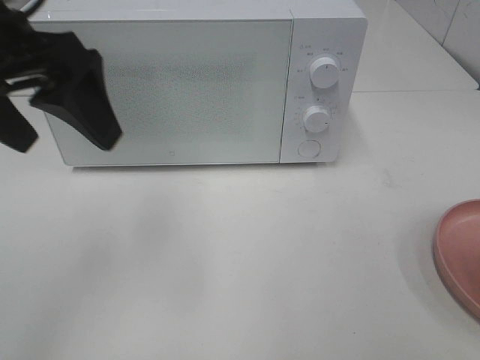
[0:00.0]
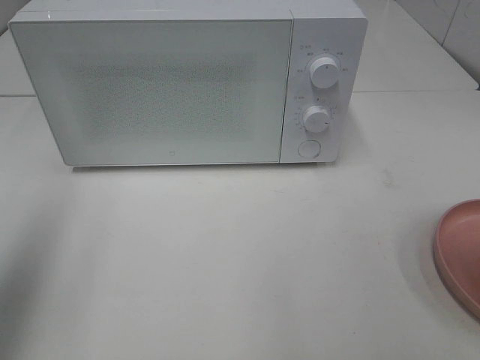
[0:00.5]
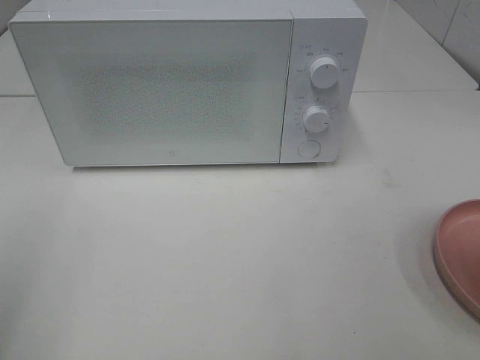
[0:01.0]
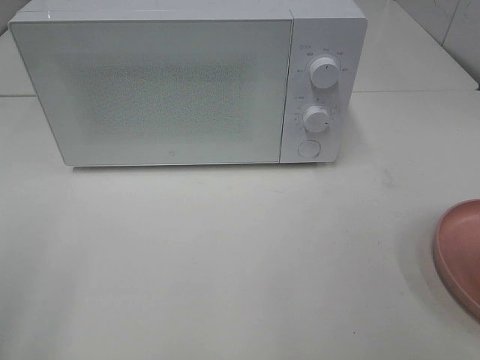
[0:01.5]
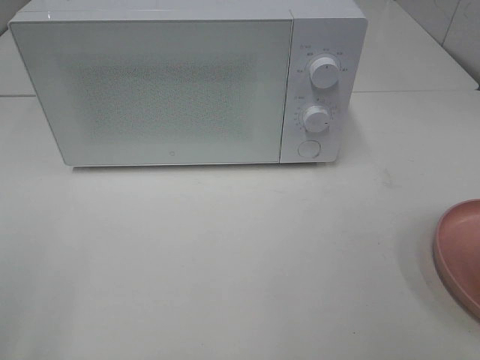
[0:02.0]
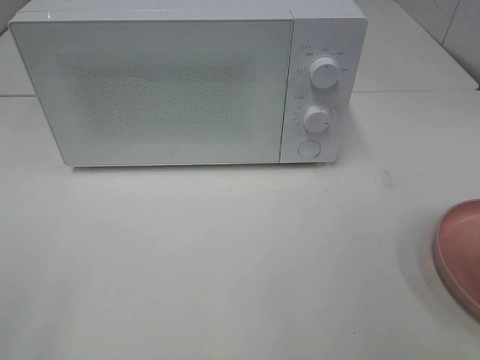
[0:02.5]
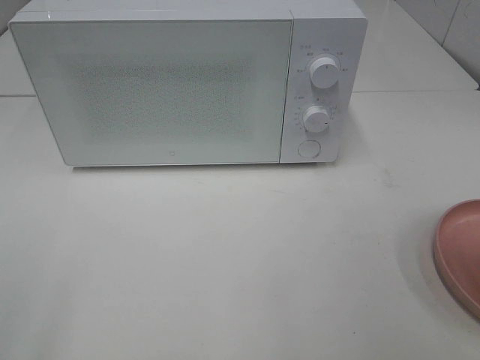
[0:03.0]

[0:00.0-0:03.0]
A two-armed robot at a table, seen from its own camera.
Task of the whole recording: Heat the burger.
0:00.0 to 0:01.5: The left gripper travels backward and to the left by approximately 25 cm.

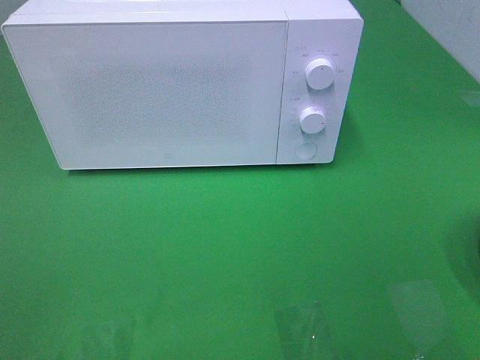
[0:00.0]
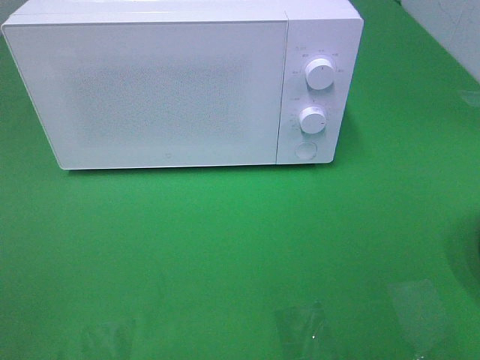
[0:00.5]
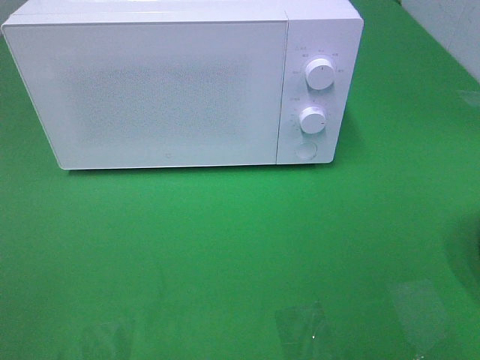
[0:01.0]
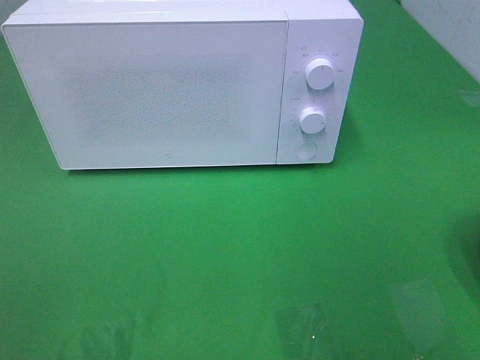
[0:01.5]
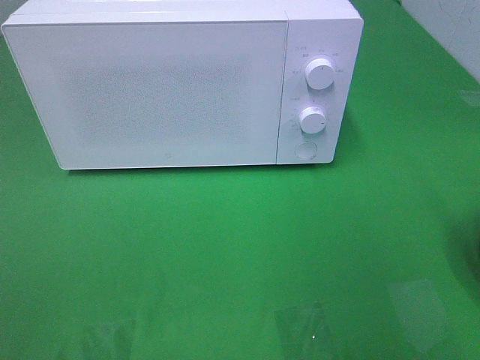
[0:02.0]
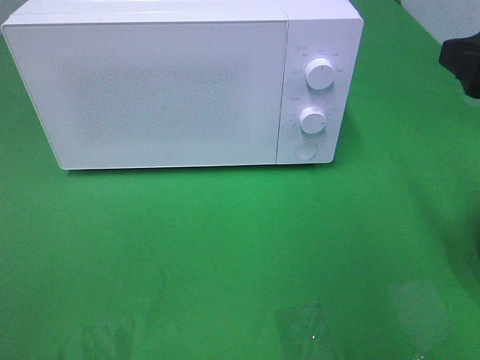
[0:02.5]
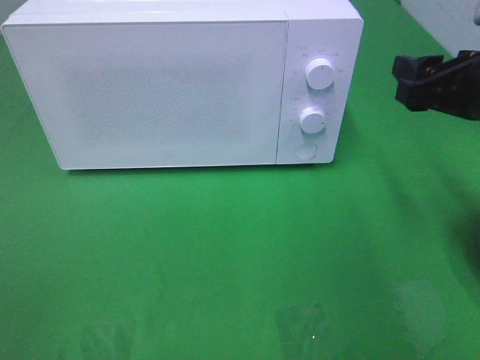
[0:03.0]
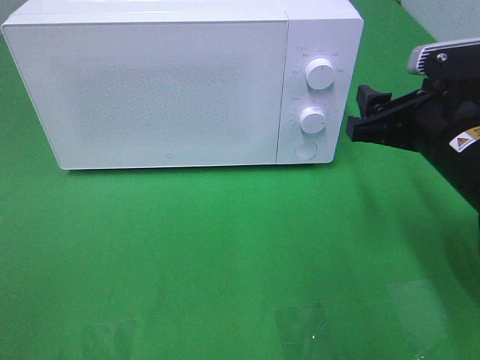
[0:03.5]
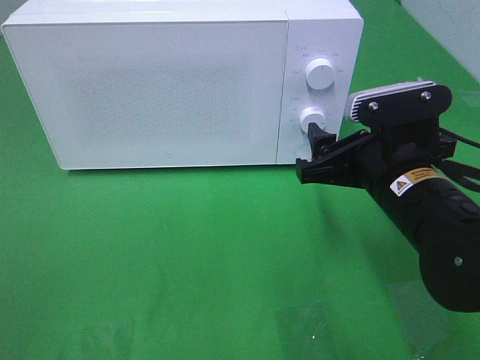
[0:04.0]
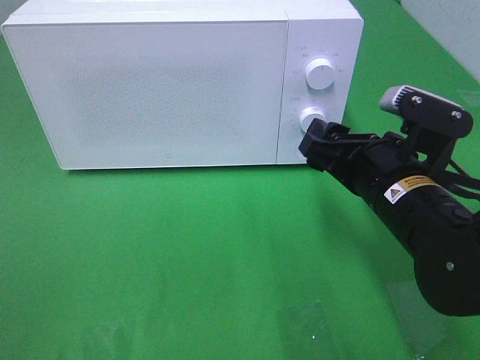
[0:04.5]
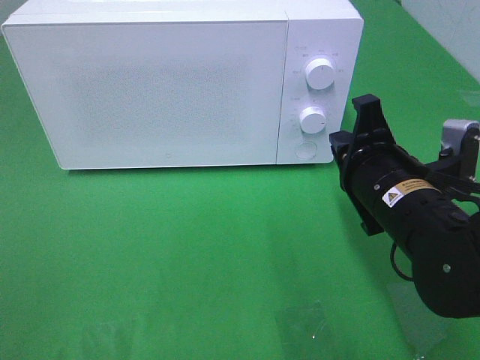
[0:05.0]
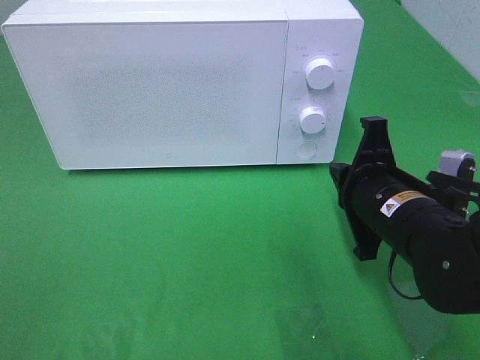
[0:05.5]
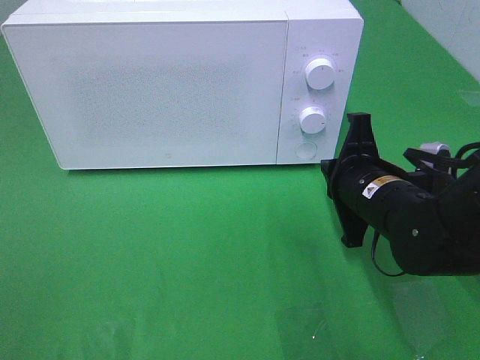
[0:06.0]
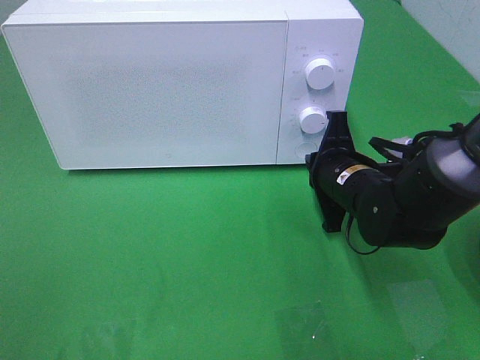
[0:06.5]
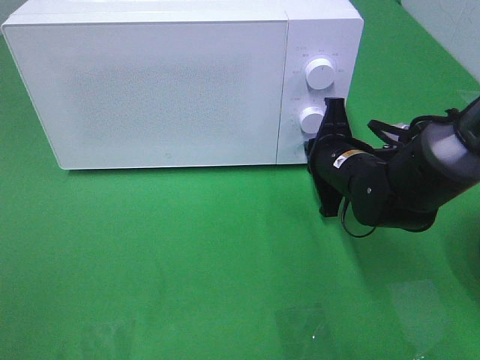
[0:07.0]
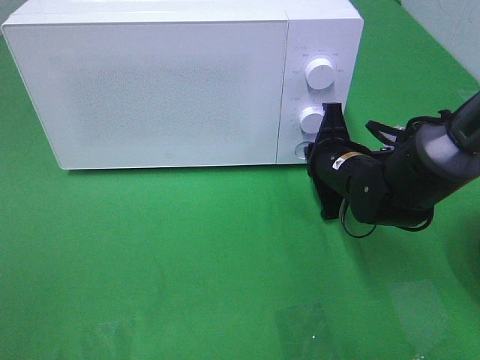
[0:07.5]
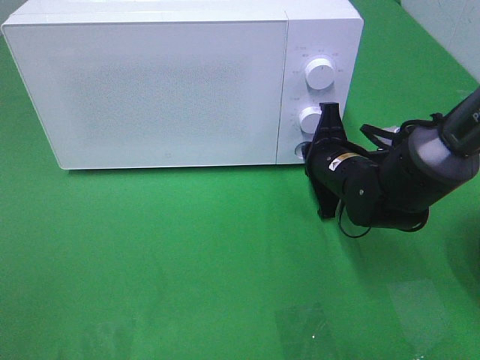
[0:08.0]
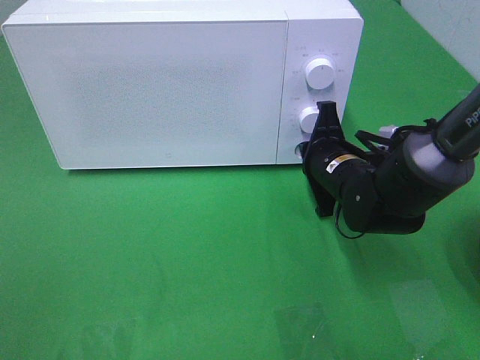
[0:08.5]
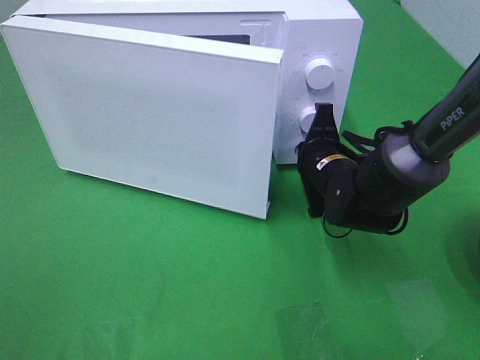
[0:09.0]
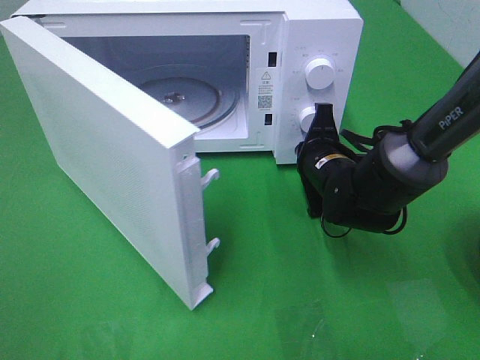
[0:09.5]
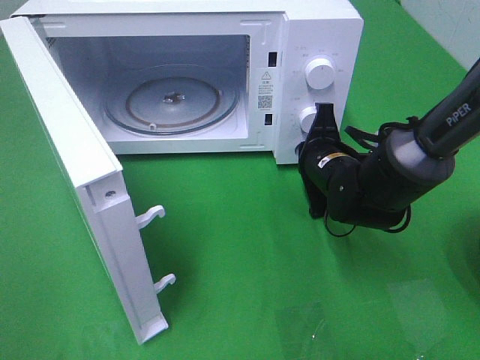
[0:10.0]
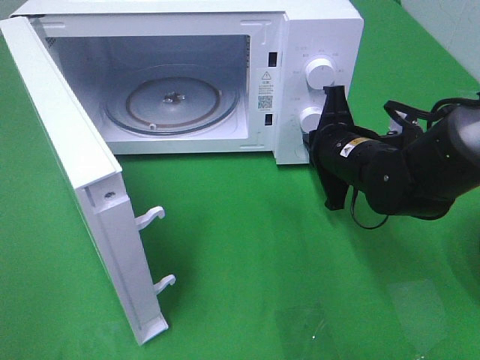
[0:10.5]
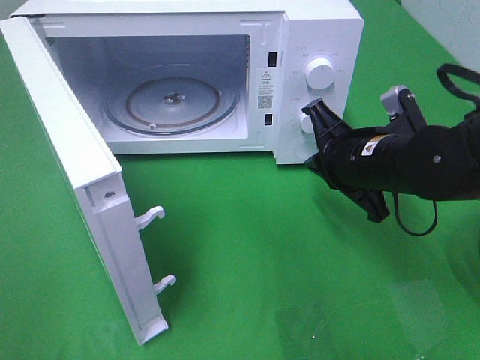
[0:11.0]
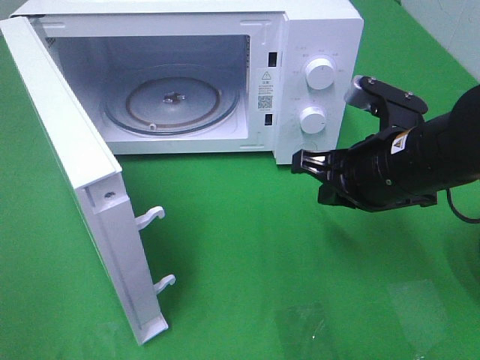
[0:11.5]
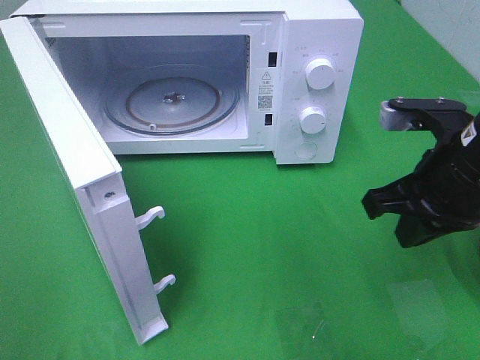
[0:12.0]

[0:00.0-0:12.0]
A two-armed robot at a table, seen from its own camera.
Task of the whole recording: Heat the burger.
Step, 0:00.0 to 0:10.0: Right hand: press the switch.
0:02.0 to 0:04.0: The right gripper is displaced downward, to the left and forward by about 20 cm.
0:04.0 to 0:06.0: The right gripper changes place by some 5 cm, and closes.
0:06.0 to 0:08.0: The right gripper goes about 5 cm forward.
0:10.0 to 0:12.0: The right gripper is displaced upward, backward and to the right by some 20 cm.

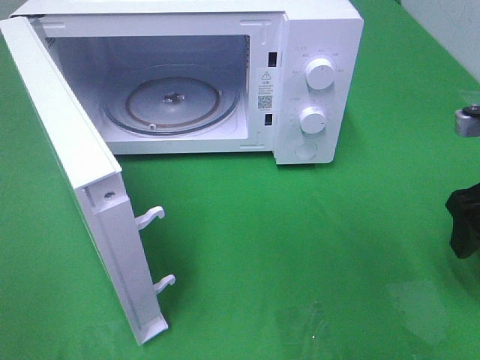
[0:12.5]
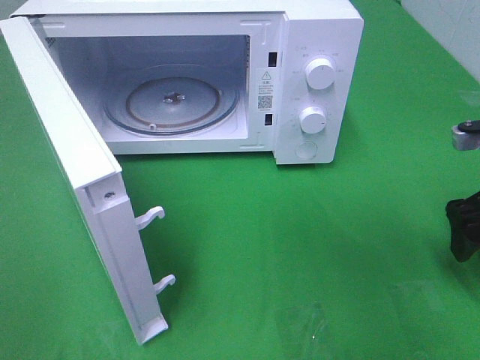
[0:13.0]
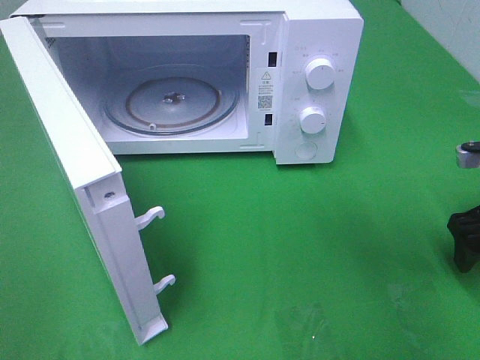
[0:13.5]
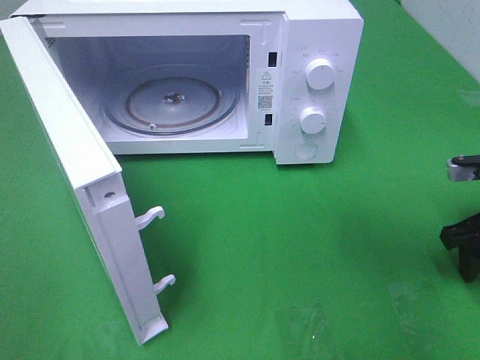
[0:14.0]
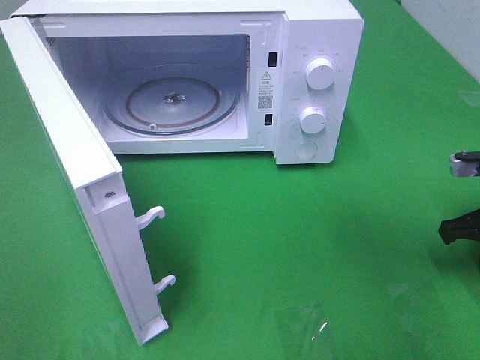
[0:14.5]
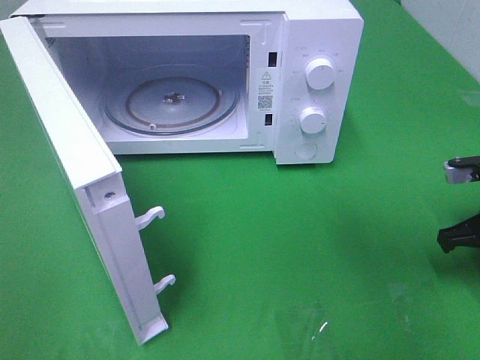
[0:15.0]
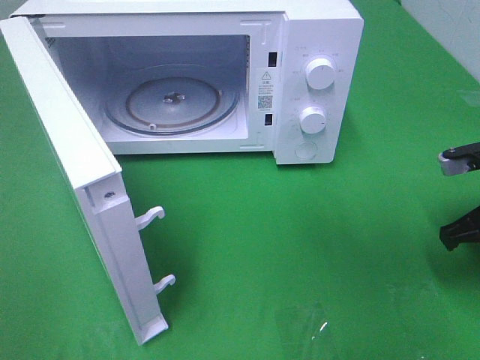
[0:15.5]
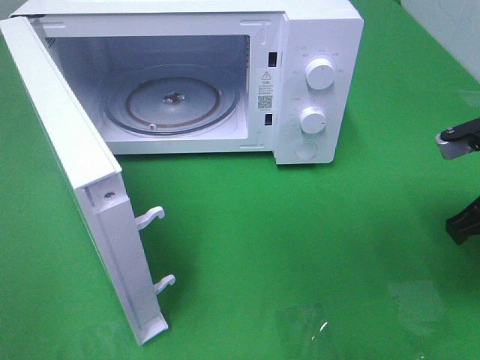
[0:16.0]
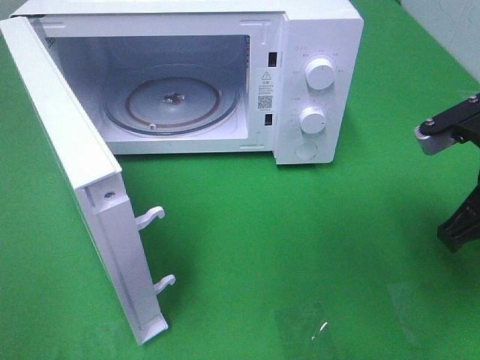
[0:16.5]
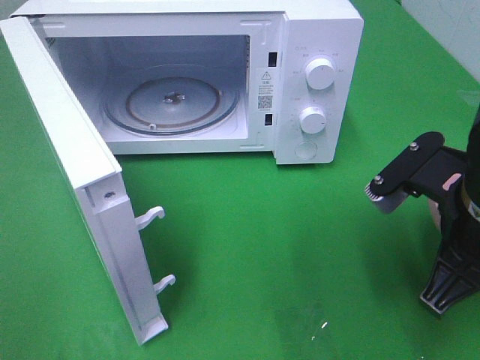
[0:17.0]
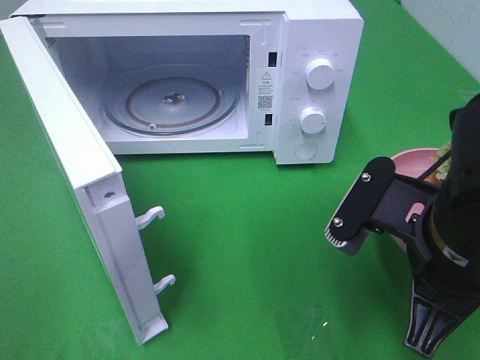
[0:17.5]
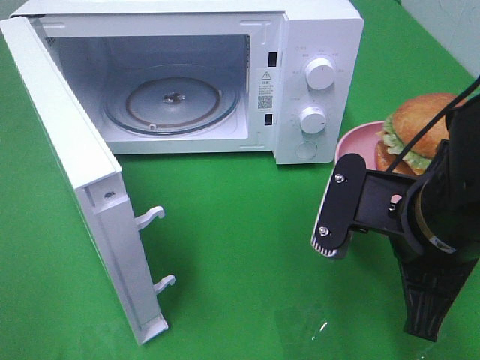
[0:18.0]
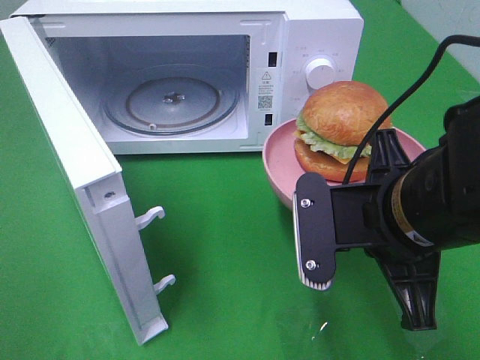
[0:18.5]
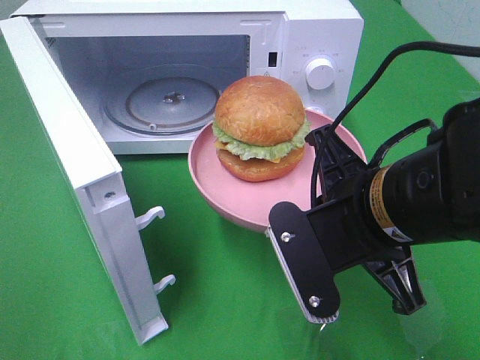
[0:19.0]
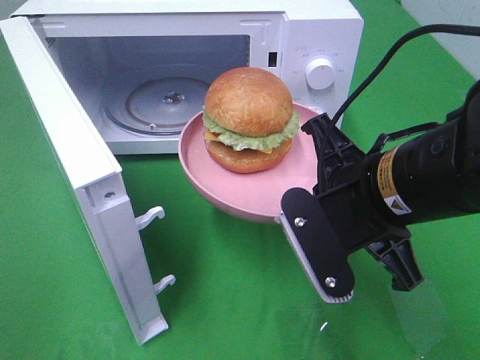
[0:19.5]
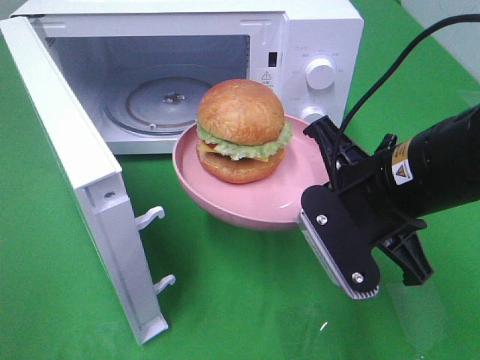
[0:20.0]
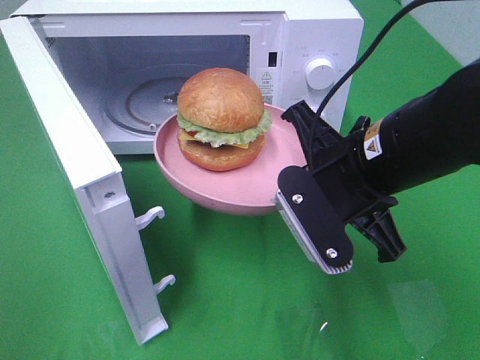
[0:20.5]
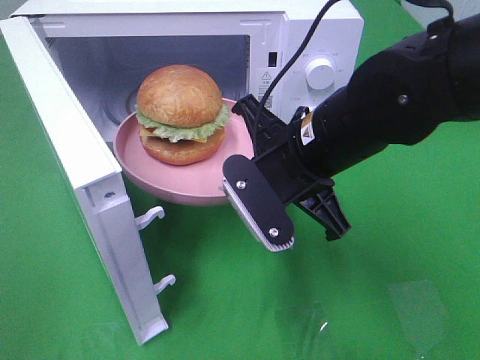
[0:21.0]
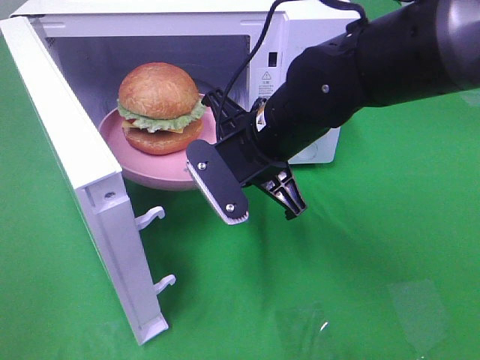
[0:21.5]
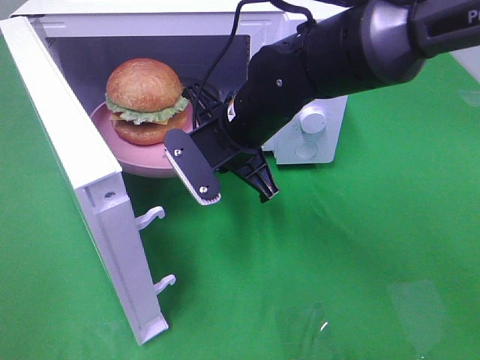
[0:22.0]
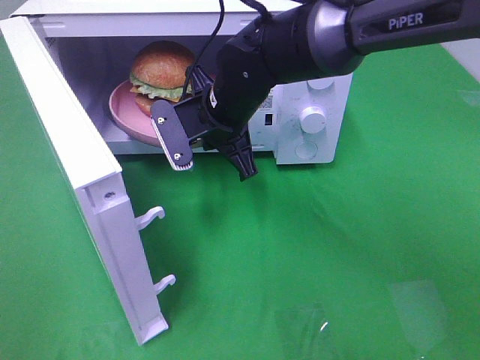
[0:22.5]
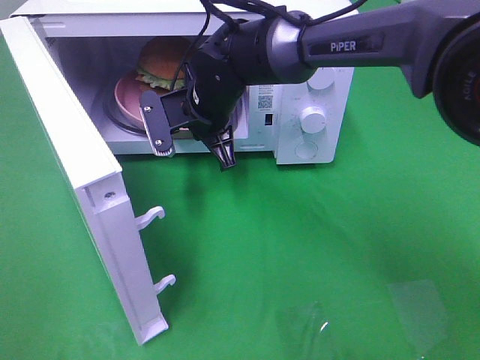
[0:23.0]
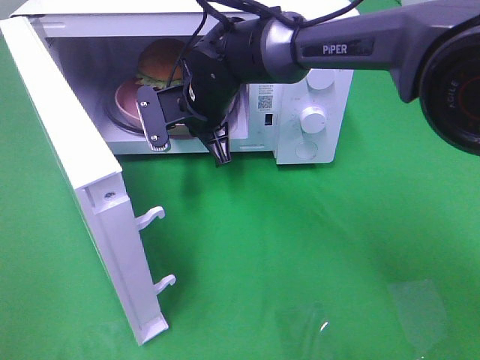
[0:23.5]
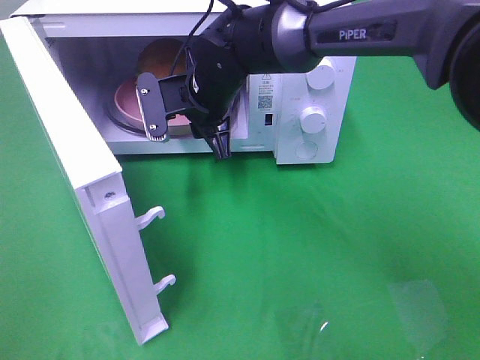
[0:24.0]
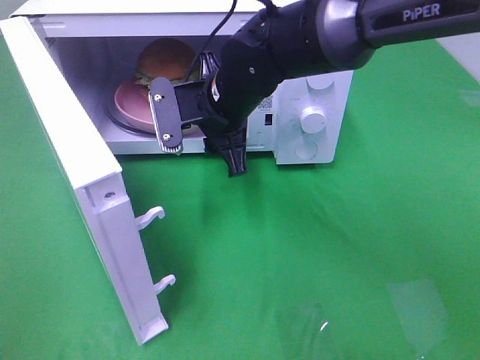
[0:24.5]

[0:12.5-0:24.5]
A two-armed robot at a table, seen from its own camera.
Task of the whole recording: Heat the burger.
Step, 0:12.5 to 0:14.5: Right hand: grab the plate with the hamburger.
Step, 0:15.0 to 0:23.5: Right hand: place the plate in the microwave.
0:12.5 to 0:14.5: The right gripper goes some 10 cm downward, and closes.
0:14.5 to 0:16.5: The right gripper moves upward, to the left and backward, about 15 cm.
0:16.5 to 0:18.5: The right gripper travels to the left by about 10 cm.
0:18.5 to 0:20.5: The right gripper is displaced forward by some 5 cm.
0:20.5 to 0:22.5: The right gripper goes roughly 20 cm forward and to the left.
0:22.5 to 0:24.5: The right gripper opens its fingers.
